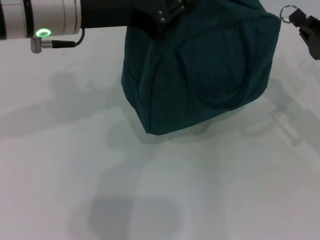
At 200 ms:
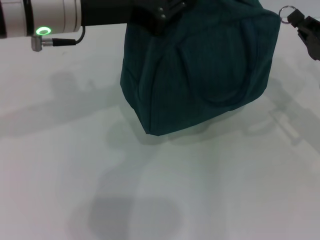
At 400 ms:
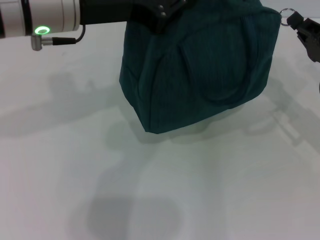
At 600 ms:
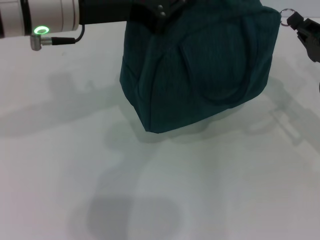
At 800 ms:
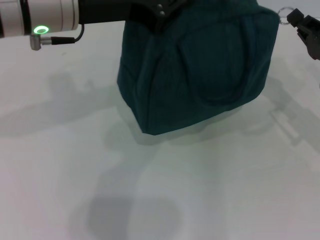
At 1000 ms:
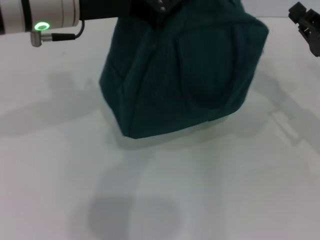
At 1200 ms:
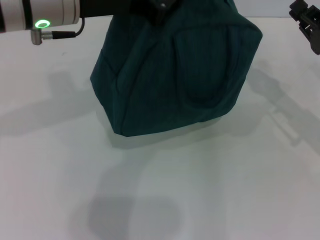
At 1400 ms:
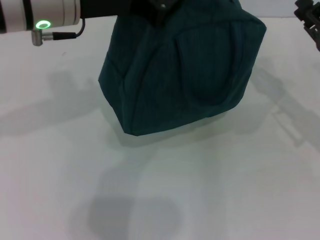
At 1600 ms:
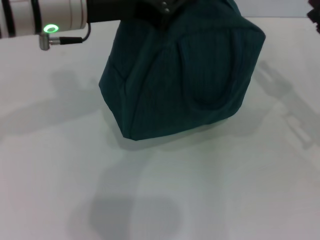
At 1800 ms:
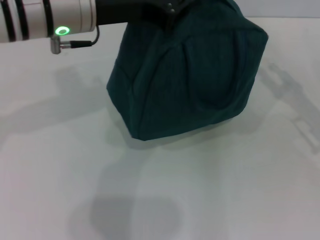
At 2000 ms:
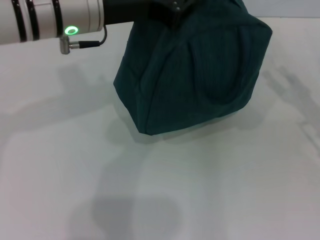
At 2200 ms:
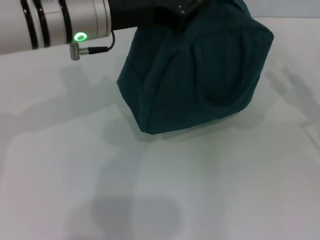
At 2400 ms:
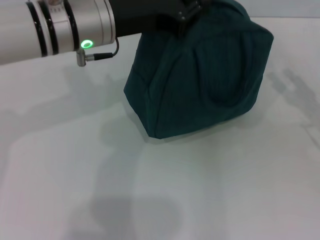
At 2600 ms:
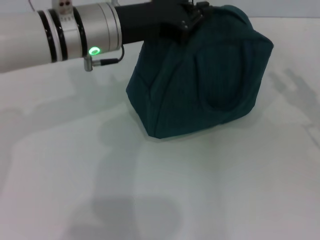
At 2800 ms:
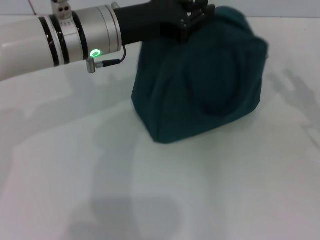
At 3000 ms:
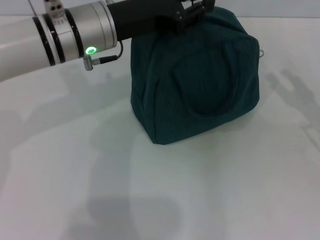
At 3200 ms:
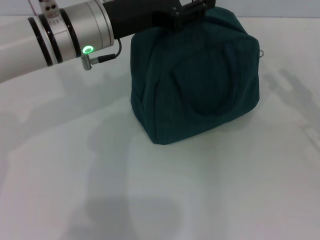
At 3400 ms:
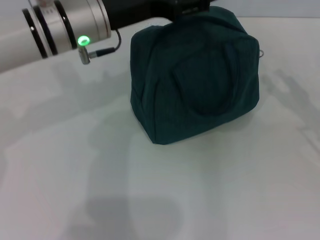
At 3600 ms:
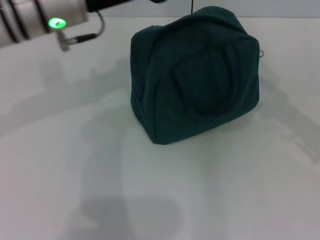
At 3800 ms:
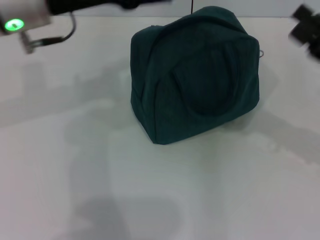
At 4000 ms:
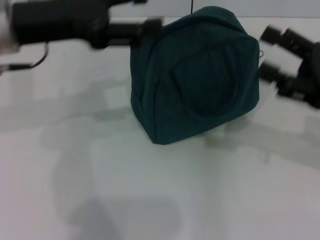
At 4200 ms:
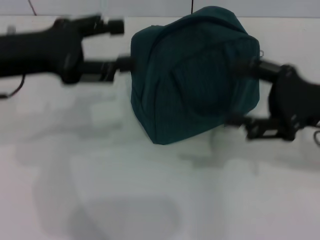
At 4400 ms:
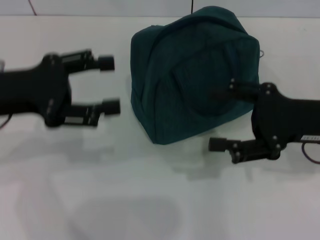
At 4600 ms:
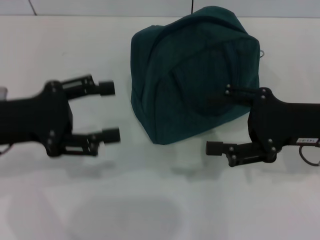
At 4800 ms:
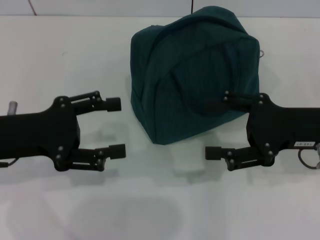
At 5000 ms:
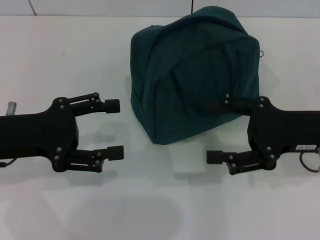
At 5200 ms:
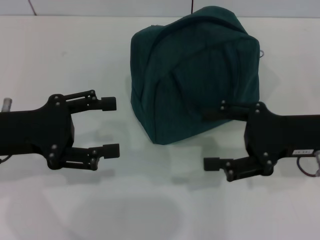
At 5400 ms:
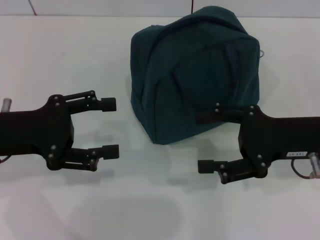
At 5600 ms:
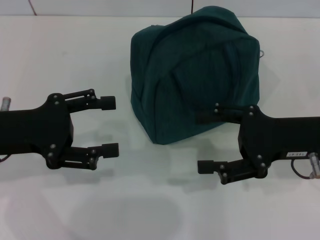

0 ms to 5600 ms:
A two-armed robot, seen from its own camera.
Step, 1000 ms to 2800 ms: Hold the lunch bag with your left hand.
0 ms to 1400 ms: Both grippers stay about where they are.
1400 ms to 2800 ms: The left gripper shifts roughly 10 cm downward. The right gripper moves some 5 cm, and opens.
2800 ms to 4200 ms: The left gripper shifts some 15 cm to the left and backward, and opens its fingers. Meanwhile the right gripper travels to the left and upward by about 10 cm.
4200 ms to 5600 ms: The left gripper goes about 5 cm downward.

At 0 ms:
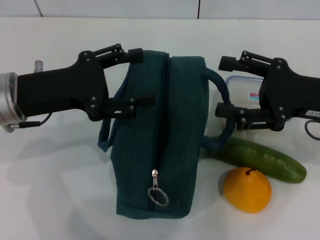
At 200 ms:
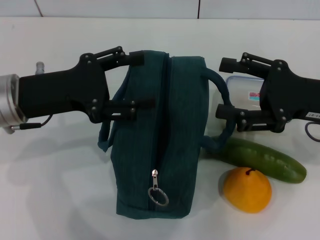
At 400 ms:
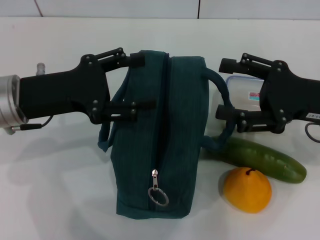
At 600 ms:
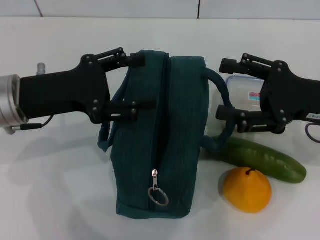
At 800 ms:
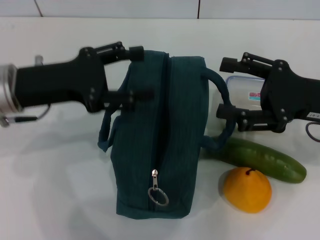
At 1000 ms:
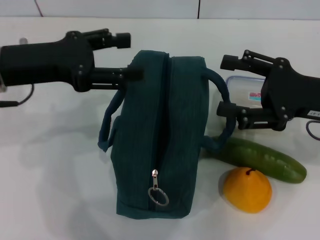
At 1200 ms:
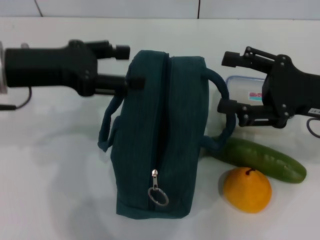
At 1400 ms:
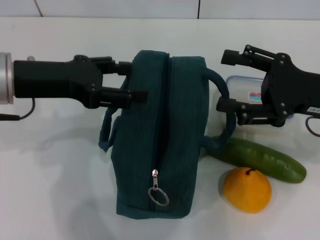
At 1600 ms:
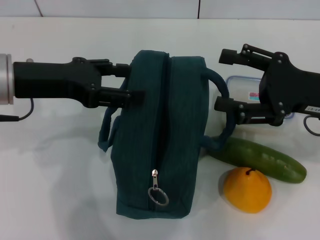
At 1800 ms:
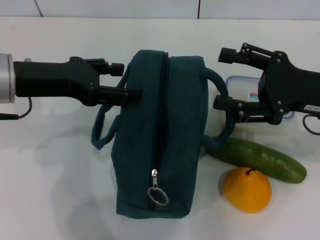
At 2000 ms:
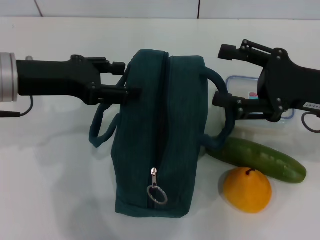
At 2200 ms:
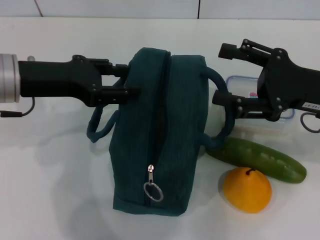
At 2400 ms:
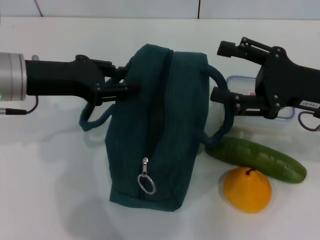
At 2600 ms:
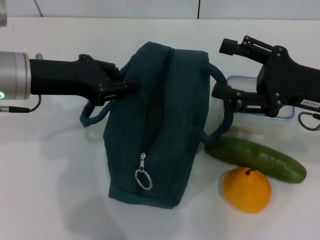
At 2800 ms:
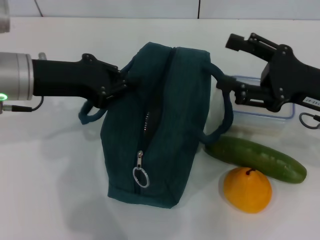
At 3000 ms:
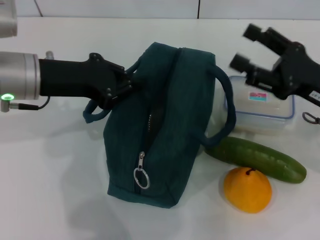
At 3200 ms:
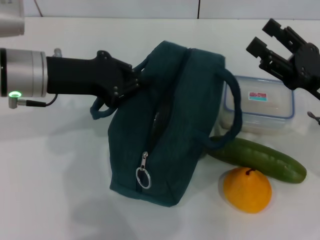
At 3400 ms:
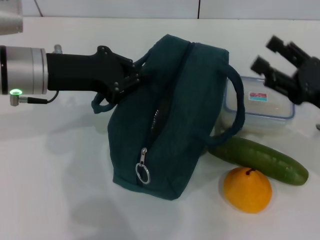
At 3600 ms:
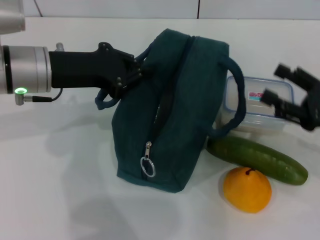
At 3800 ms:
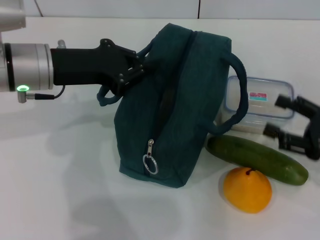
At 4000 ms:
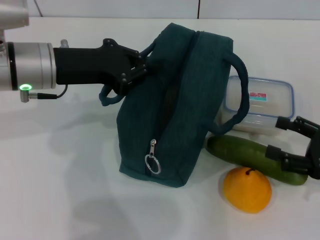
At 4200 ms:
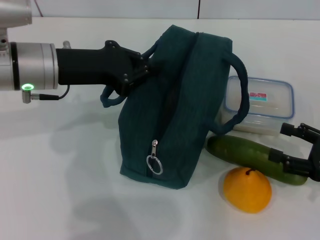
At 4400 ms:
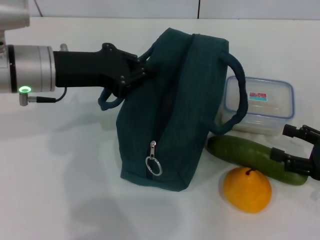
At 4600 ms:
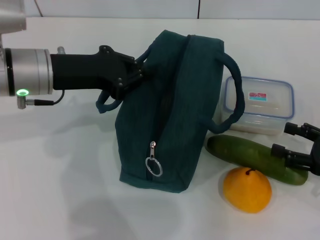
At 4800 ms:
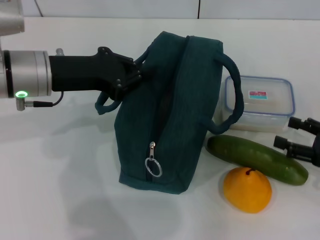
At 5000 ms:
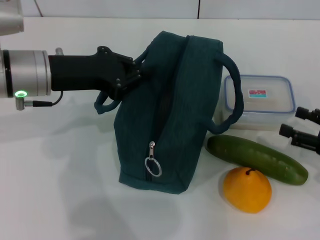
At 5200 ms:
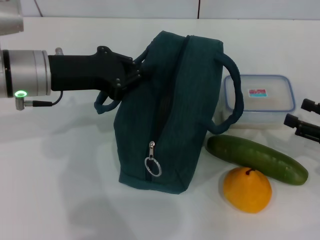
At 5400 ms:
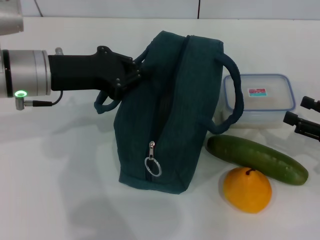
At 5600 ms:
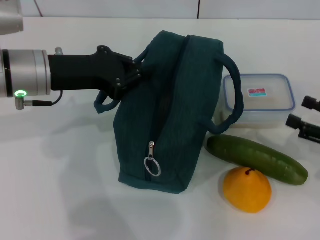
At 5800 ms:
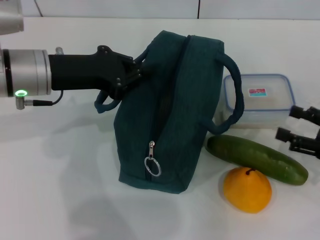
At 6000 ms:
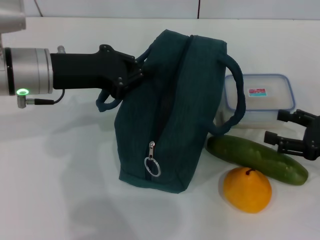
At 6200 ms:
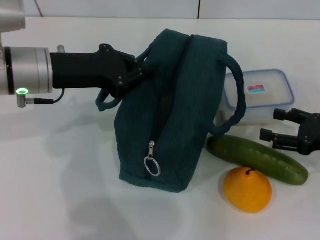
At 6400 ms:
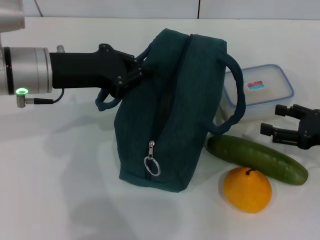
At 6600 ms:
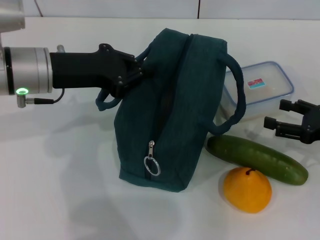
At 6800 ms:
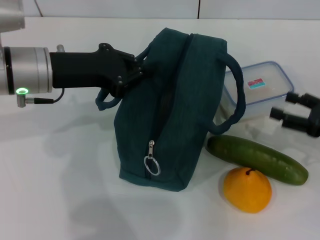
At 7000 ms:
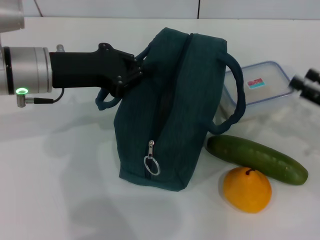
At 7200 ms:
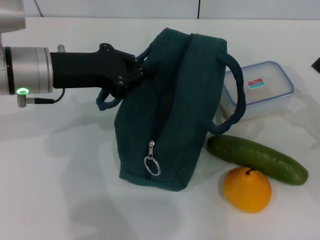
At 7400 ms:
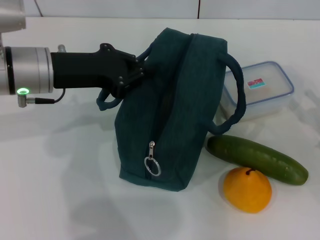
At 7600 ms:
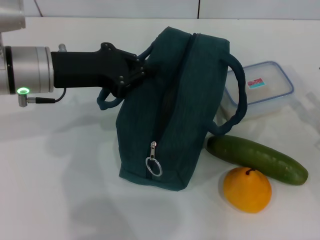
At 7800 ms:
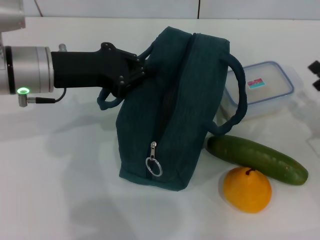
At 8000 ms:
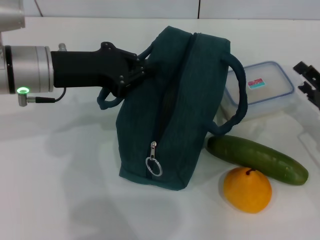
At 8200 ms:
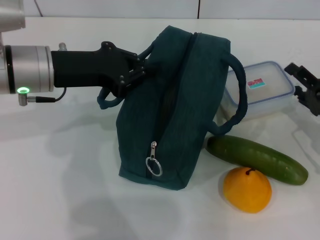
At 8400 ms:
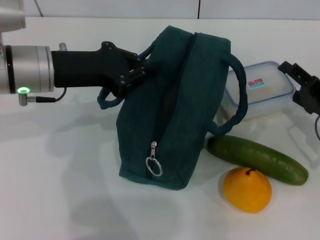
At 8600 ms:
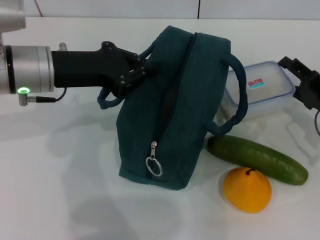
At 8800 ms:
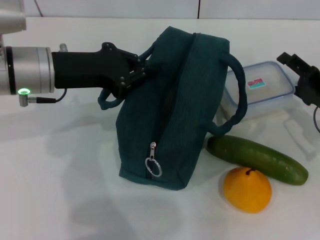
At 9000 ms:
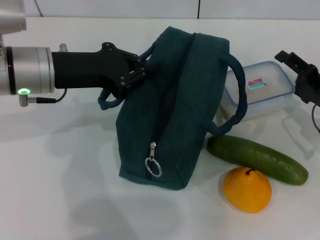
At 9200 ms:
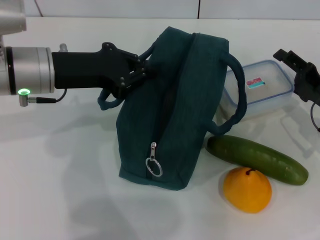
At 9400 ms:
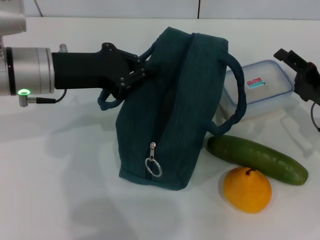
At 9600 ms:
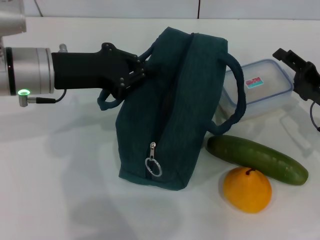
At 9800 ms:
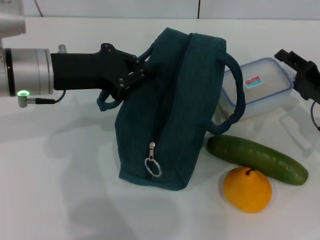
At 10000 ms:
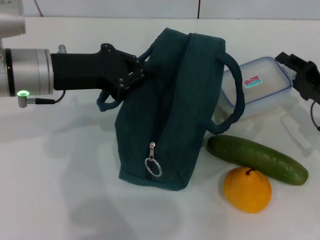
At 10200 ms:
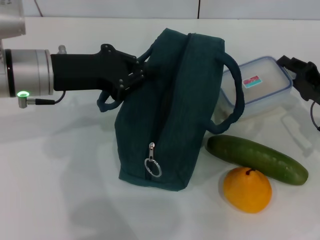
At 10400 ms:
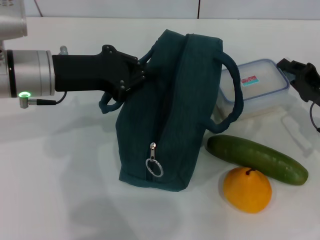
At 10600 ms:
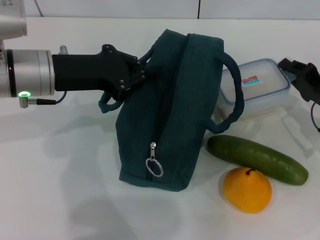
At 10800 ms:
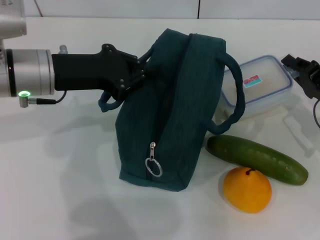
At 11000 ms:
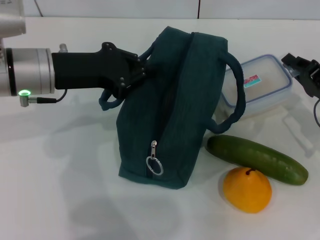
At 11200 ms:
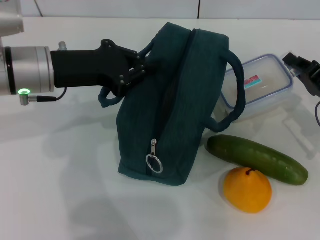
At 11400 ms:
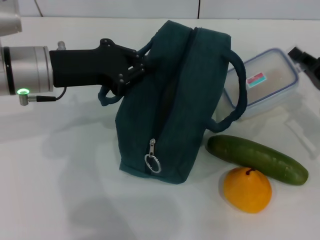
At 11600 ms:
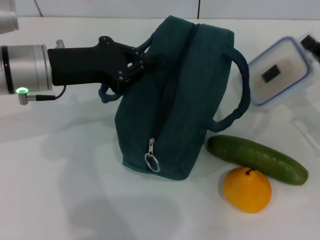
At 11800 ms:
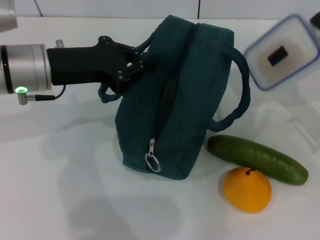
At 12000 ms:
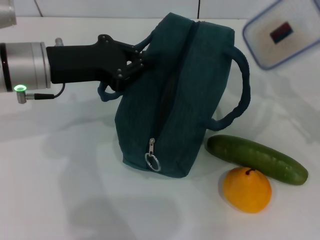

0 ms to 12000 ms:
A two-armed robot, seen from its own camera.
Step, 0 ms to 3600 ms: Hold the lunch bag with your left hand.
Step, 3800 ms to 10400 ms: Pick up the lunch box with your right hand.
1600 ms to 3000 ms: The left gripper closes its fingers.
3000 ms to 4400 ms: The right gripper is displaced to the right, downward and backward by approximately 10 cm.
4400 ms to 6000 ms: The grippers make only small movements.
7600 ms to 9000 ms: The right gripper shifts roughly 5 cm forward.
9000 ms to 10400 ms: The right gripper closes its fingers.
10400 ms to 12000 ms: The right gripper shifts roughly 5 cm upward.

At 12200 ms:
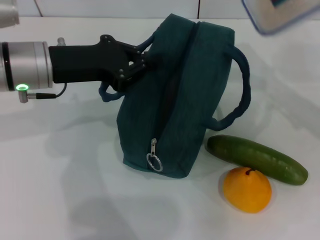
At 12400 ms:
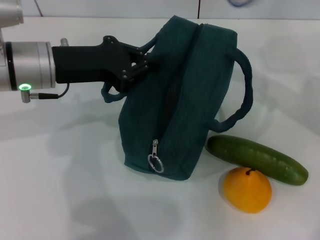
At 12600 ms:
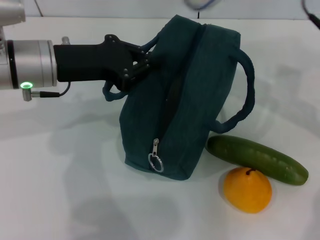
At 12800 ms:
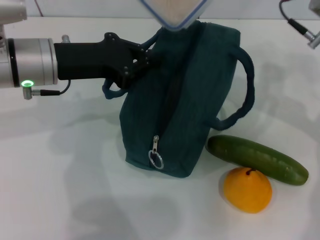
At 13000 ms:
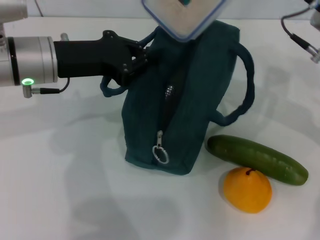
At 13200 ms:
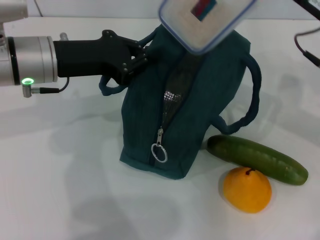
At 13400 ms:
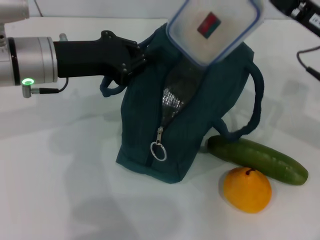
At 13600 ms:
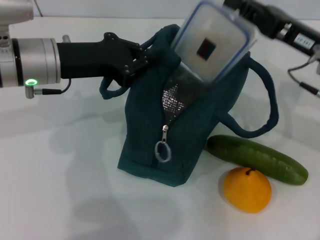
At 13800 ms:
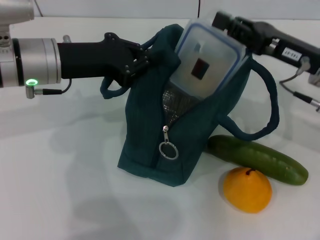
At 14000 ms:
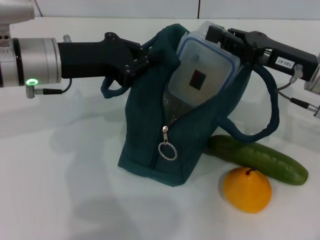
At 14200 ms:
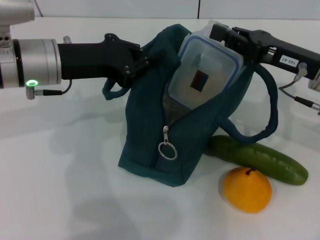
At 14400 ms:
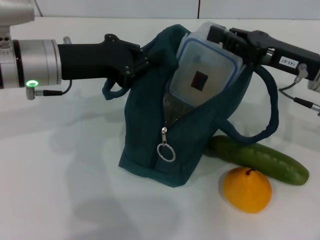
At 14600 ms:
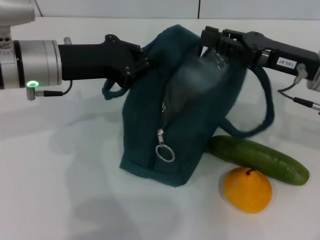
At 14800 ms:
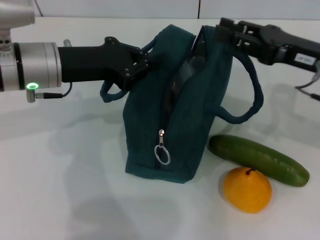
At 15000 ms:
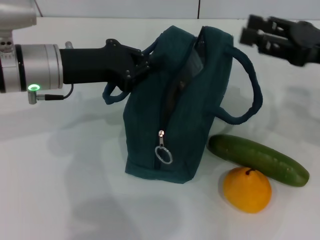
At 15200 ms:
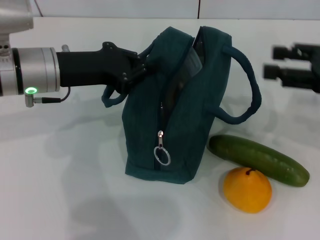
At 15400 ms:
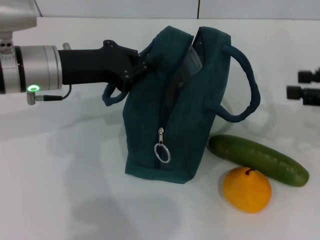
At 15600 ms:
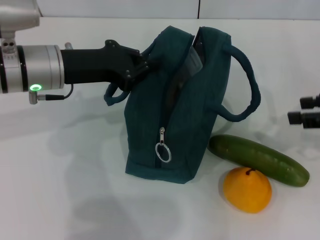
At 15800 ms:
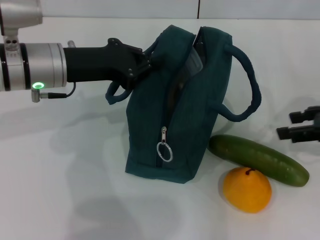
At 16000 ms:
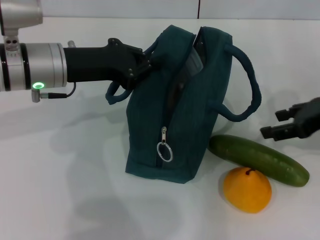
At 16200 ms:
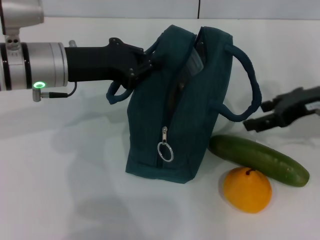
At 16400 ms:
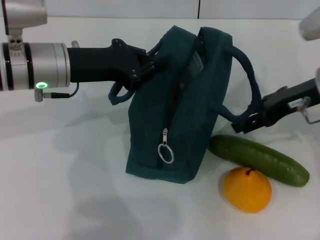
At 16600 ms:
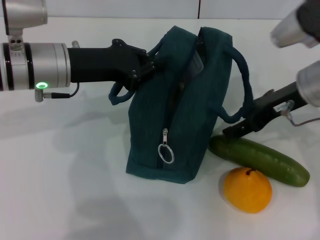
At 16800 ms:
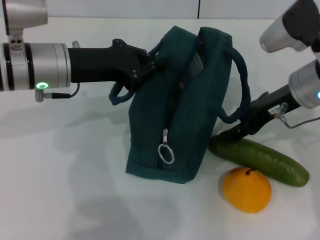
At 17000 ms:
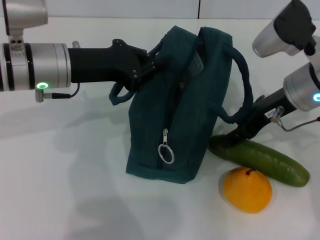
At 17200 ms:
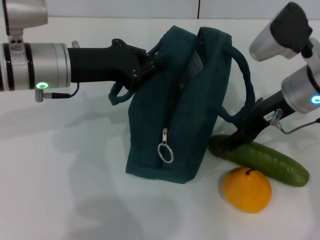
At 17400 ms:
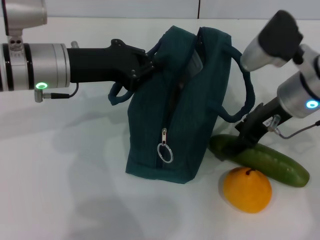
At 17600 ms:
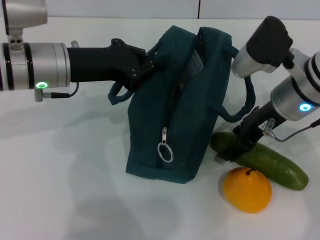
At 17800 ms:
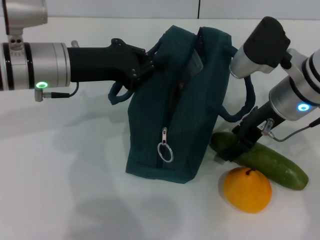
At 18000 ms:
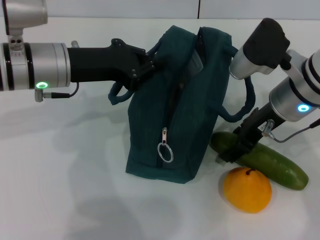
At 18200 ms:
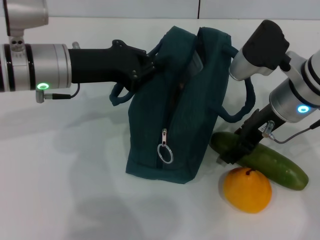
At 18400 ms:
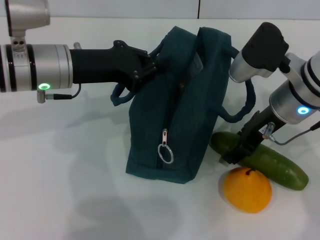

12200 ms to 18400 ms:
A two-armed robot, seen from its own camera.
Step, 12200 ms to 14800 ms: Place the lunch box into the lunch bag with your right hand.
12200 ms to 13800 ms: The right gripper moves to the left, about 5 cm.
13800 ms to 15400 ms: The right gripper shifts roughly 10 cm to the right and backward, and opens.
15400 ms to 16800 ms: The right gripper heads to the left and forward, covering about 15 cm.
16800 ms to 18400 ms: The grippers stay close to where they were, moving slightly.
